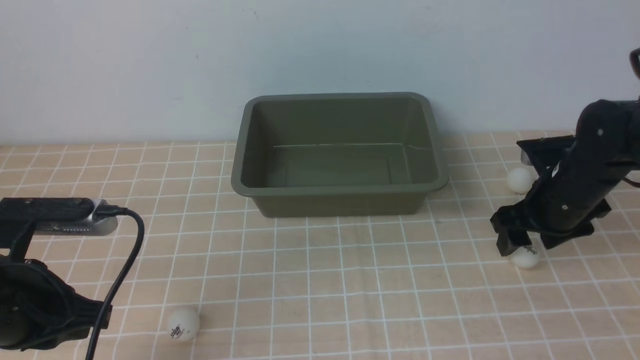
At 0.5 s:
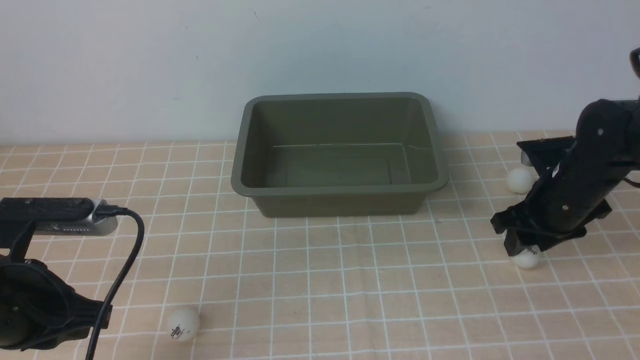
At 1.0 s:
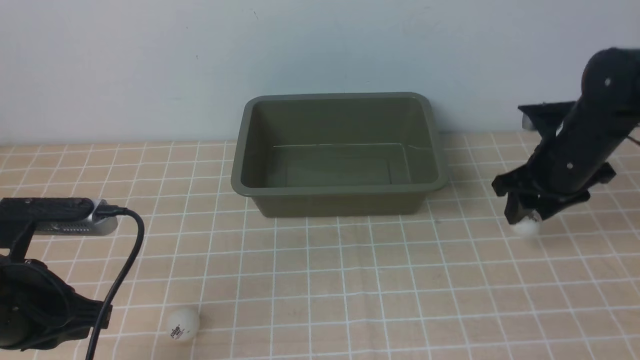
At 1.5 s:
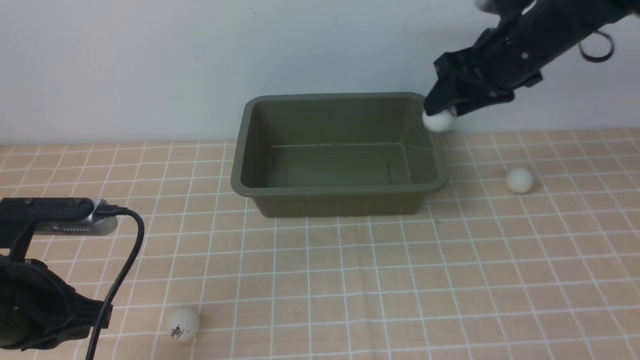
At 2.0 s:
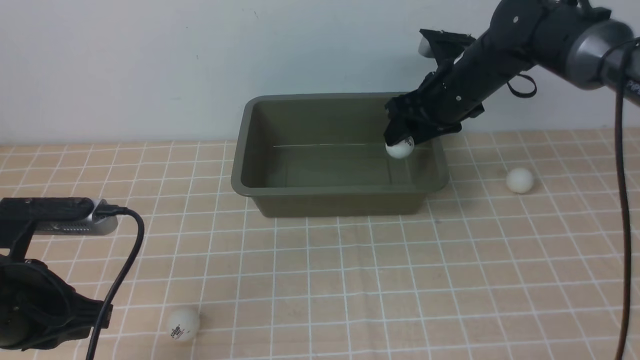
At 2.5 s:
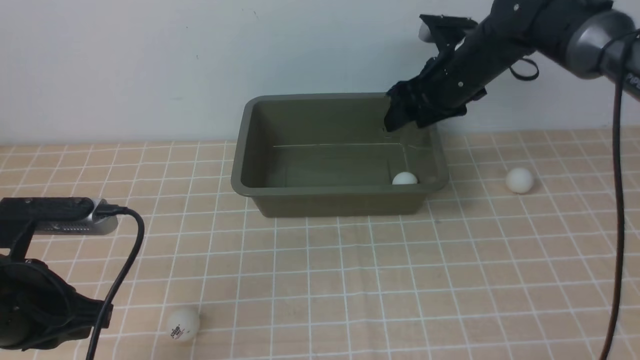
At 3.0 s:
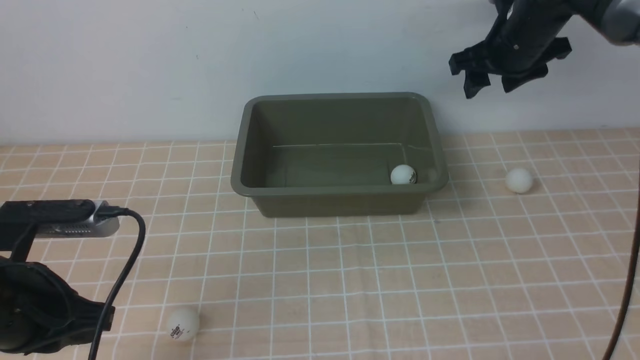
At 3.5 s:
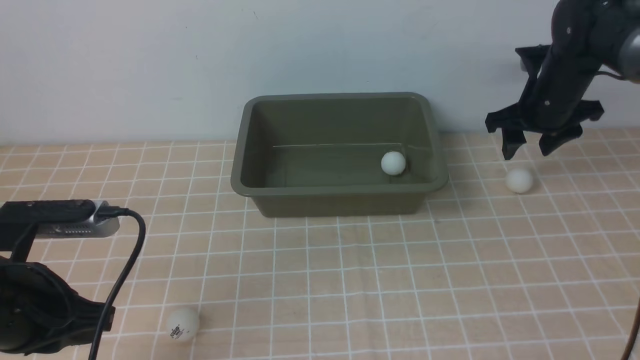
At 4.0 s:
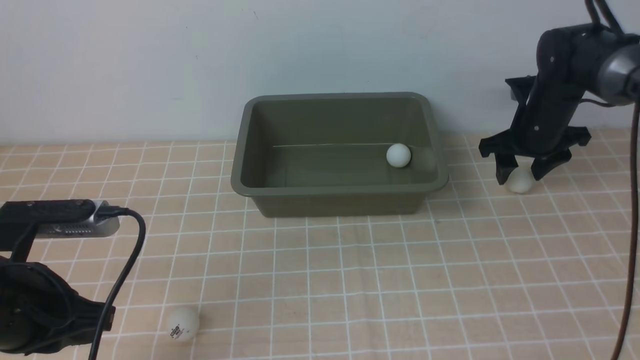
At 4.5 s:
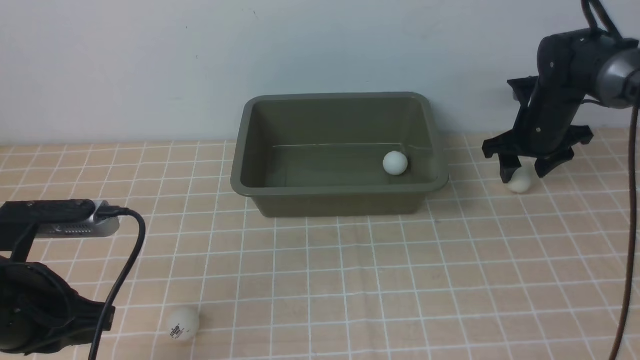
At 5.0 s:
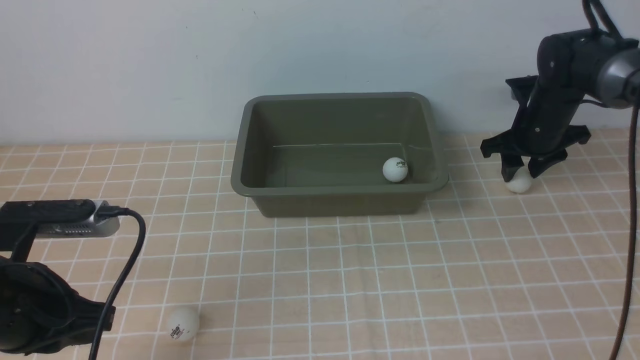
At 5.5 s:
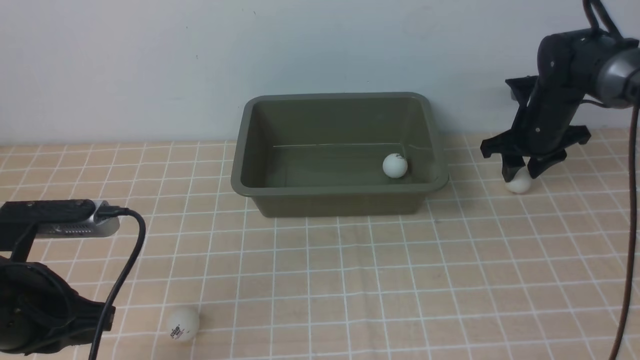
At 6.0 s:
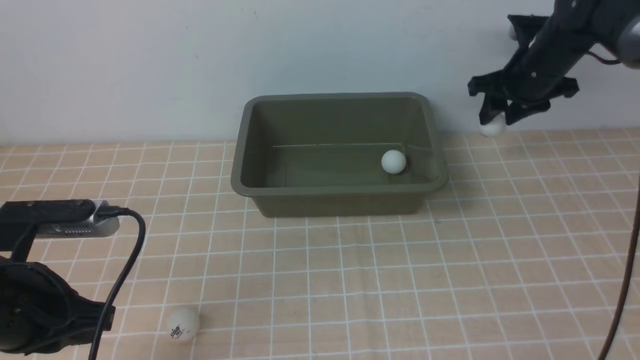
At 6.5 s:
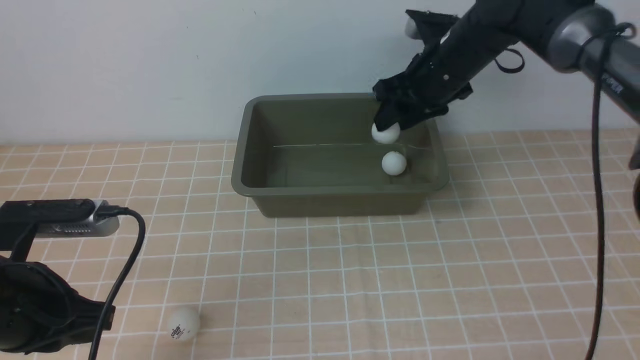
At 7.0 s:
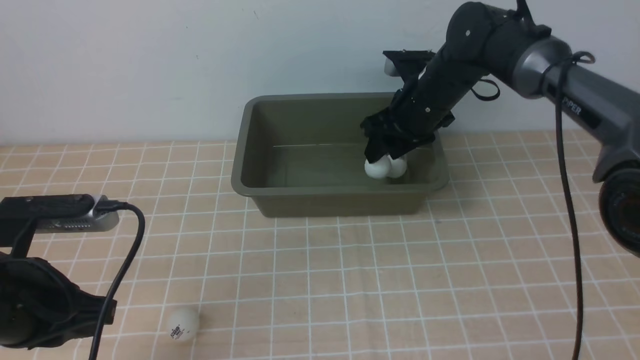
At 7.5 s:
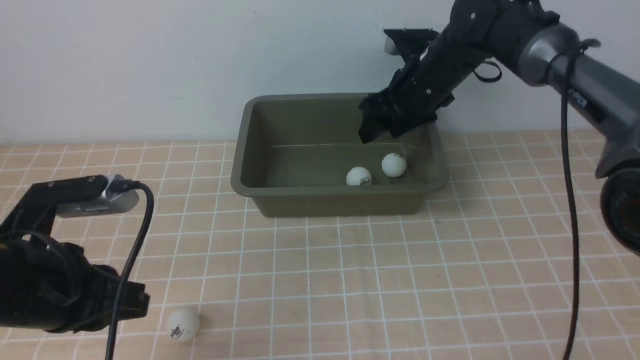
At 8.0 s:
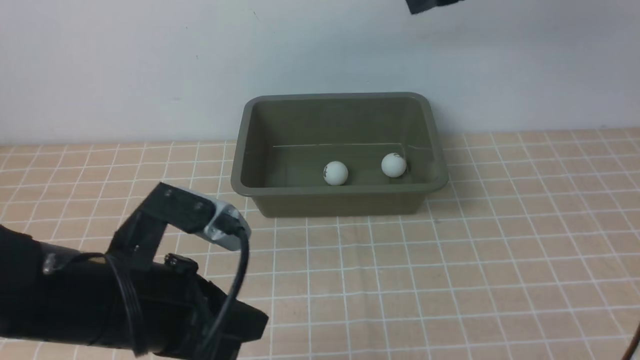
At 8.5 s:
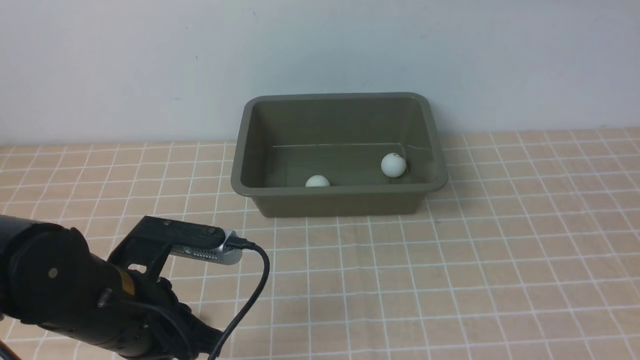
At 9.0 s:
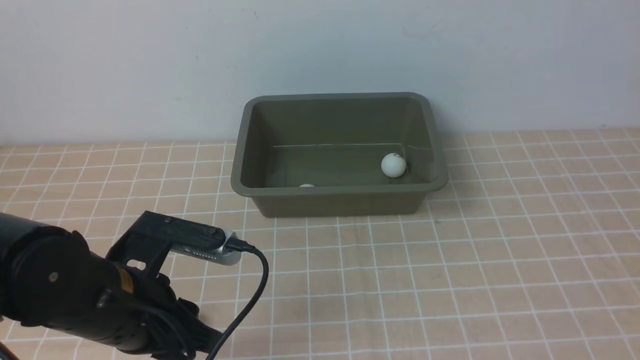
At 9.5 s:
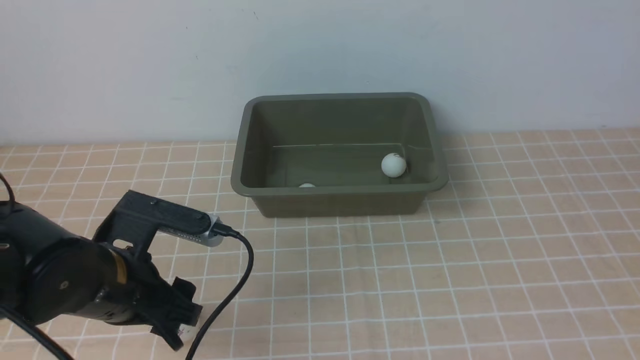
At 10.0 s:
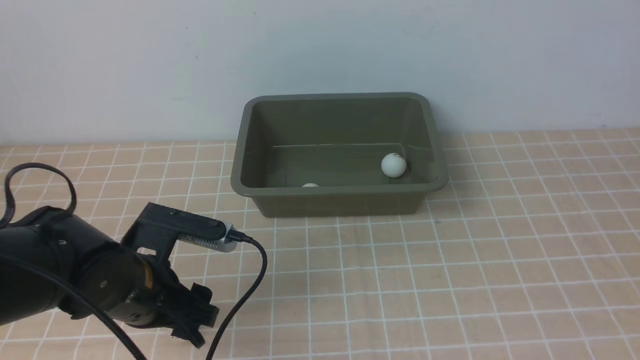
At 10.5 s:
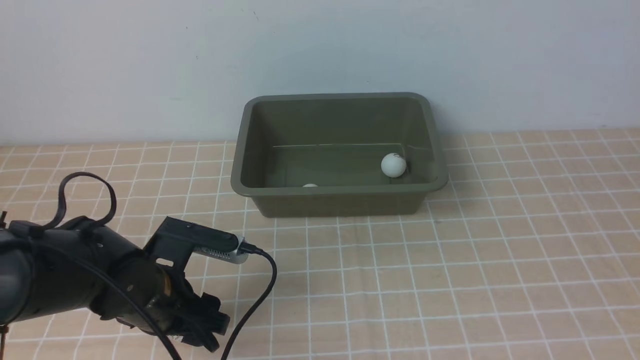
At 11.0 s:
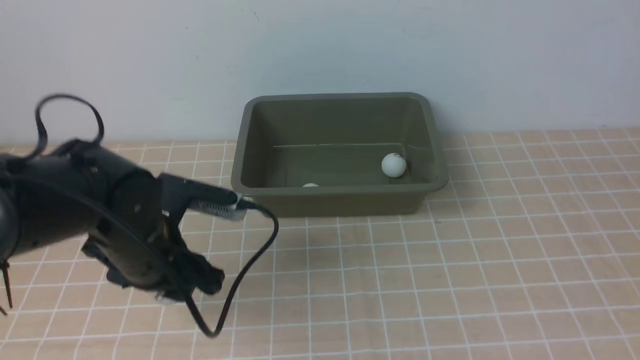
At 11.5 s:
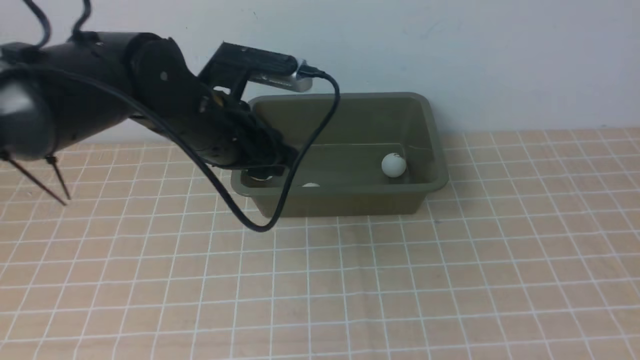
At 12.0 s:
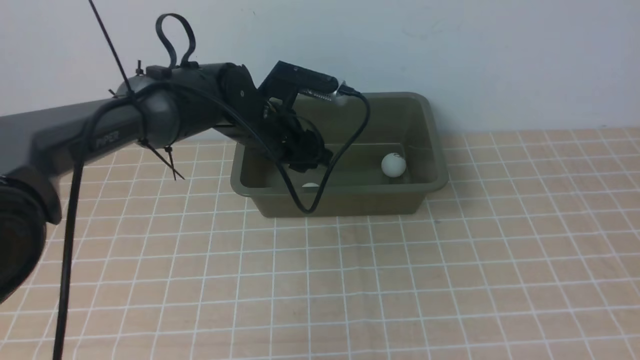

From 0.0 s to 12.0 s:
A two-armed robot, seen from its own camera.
Step, from 1.0 s to 2.5 s: use the right arm to put the table tennis ball into the box.
Step, from 3.0 s to 6.0 s: use the right arm to clamp the table tennis ball closest to it.
Step, from 6.5 s to 7.0 s: use the right arm to put the table tennis ball into the box.
Step, from 8.0 s to 11.0 s: use the left arm to clamp the table tennis ball closest to it.
From 0.0 s to 2.0 s: The right gripper heads to the left, forward and upward, covering approximately 15 cm.
From 2.0 s to 4.0 s: The right gripper goes about 15 cm to the right and downward.
From 4.0 s to 6.0 s: The grippers stay close to where they were, moving slightly.
From 6.0 s to 8.0 s: The right gripper is displaced upward and to the left by roughly 20 cm; the left gripper shifts approximately 10 cm to the right.
From 8.0 s to 10.0 s: The right gripper shifts approximately 35 cm backward and to the right. Meanwhile the left gripper shifts roughly 10 cm downward and forward, and opens its fingers.
From 10.0 s to 12.0 s: The left gripper heads forward and to the right, covering approximately 20 cm, and closes its fingers.

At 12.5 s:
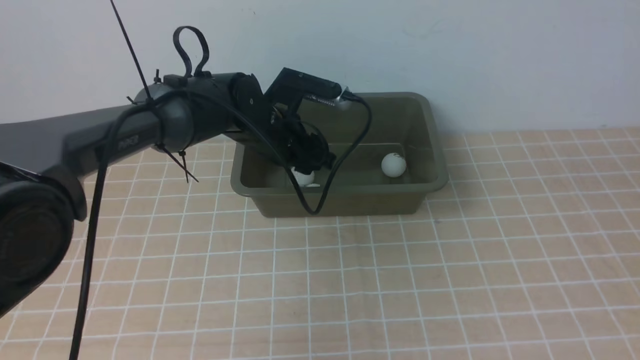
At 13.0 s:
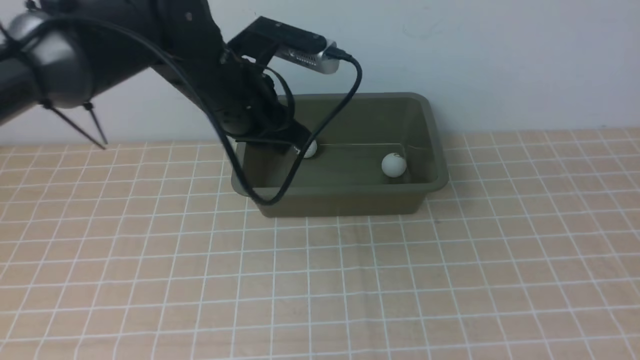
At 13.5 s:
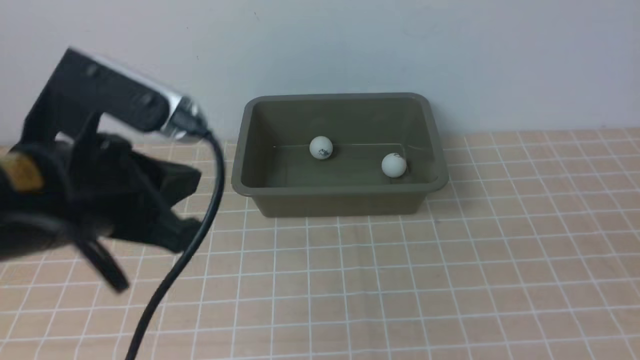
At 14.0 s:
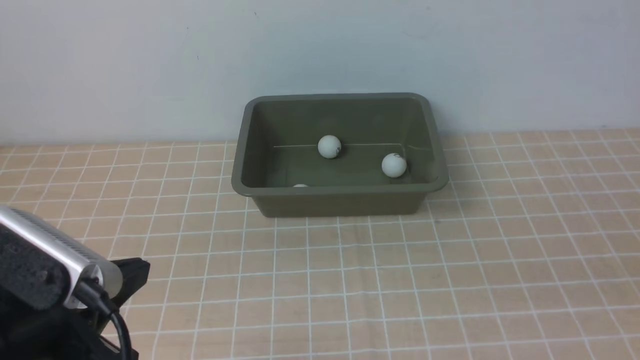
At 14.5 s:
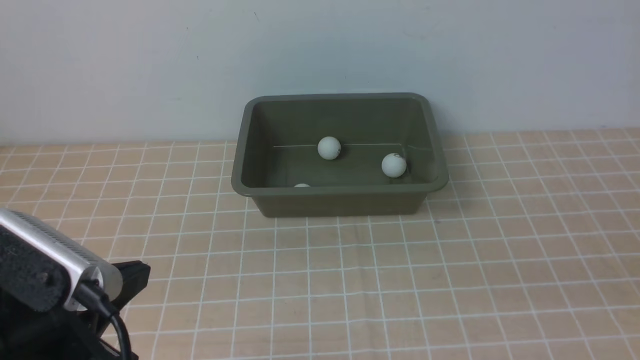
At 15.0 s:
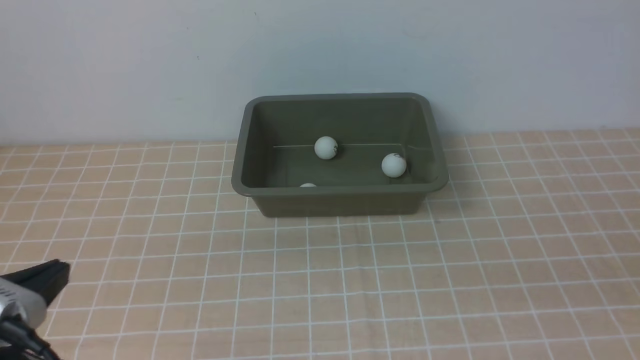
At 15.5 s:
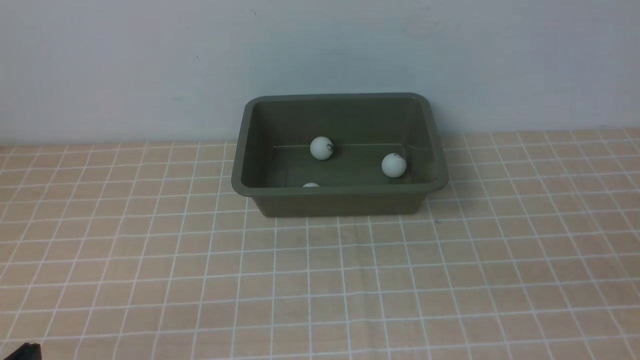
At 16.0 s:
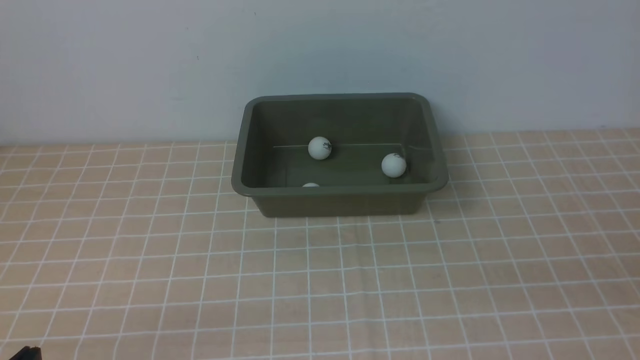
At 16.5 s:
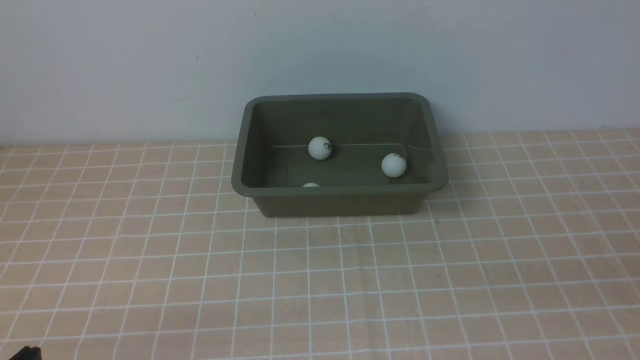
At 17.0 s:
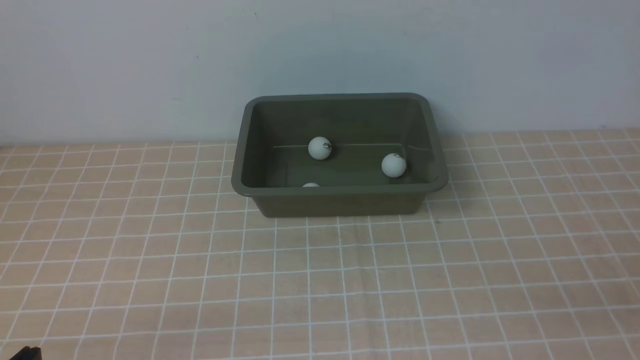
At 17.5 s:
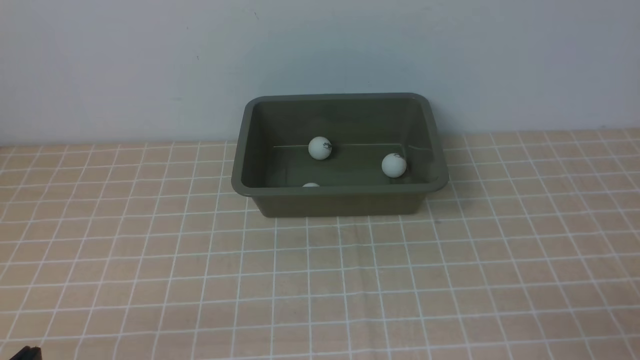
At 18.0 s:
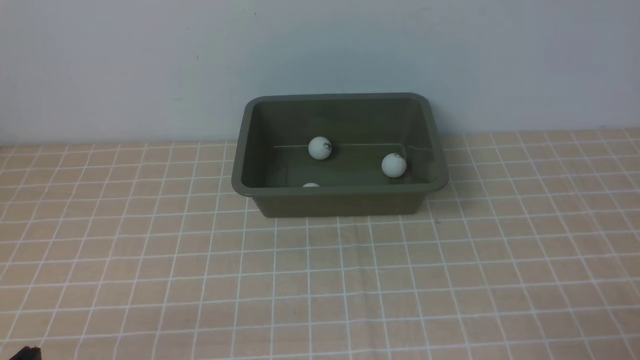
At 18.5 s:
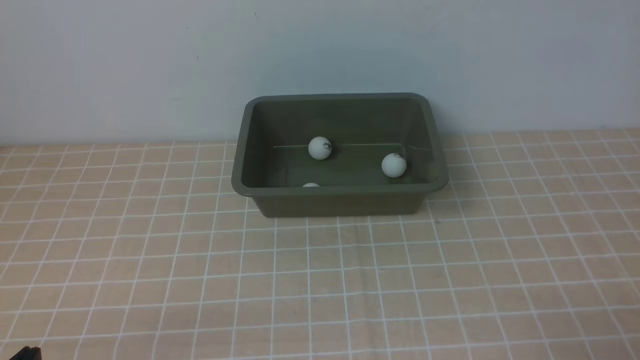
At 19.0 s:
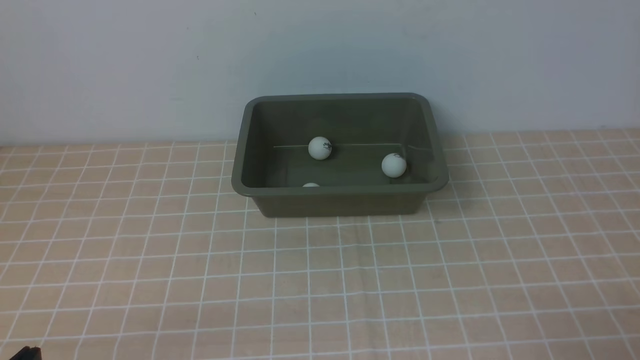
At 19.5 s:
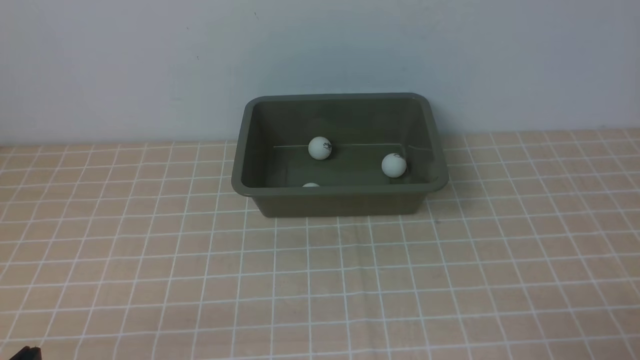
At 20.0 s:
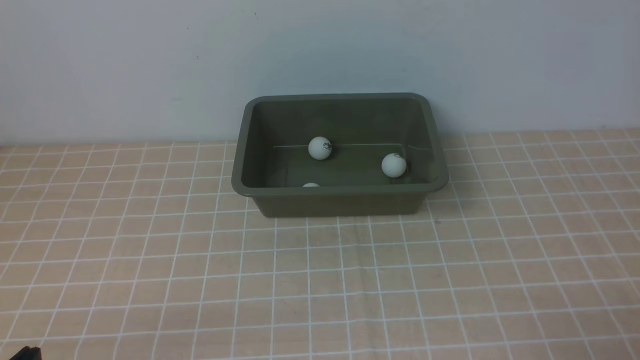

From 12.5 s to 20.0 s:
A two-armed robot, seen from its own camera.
From 12.5 s to 14.5 s: The left gripper moves backward, roughly 35 cm, and closes. The right gripper is displaced downward by approximately 15 cm.
From 14.5 s to 16.5 s: The left gripper moves downward, backward and to the left, approximately 15 cm.
From 18.0 s to 20.0 s: Both grippers stay about where they are.
